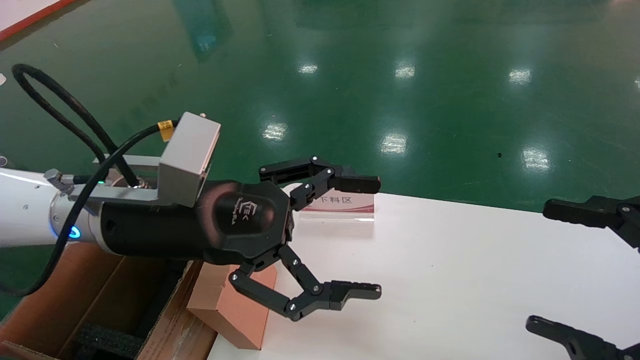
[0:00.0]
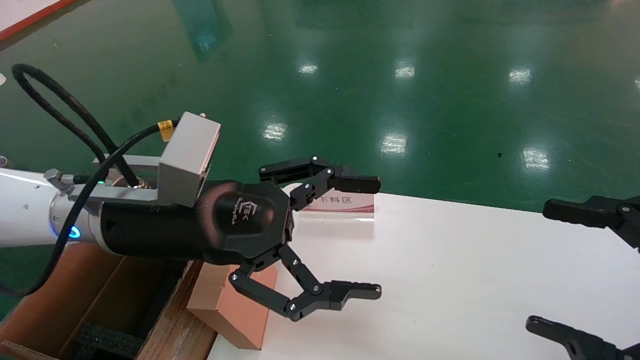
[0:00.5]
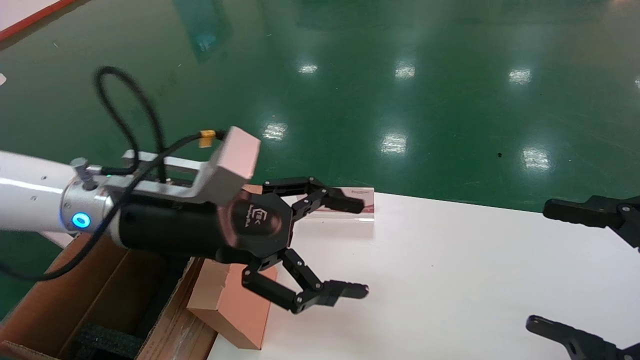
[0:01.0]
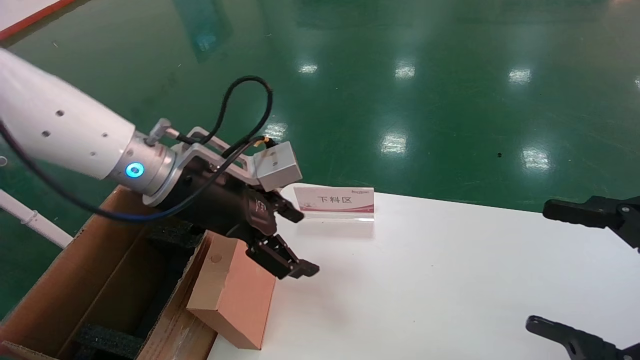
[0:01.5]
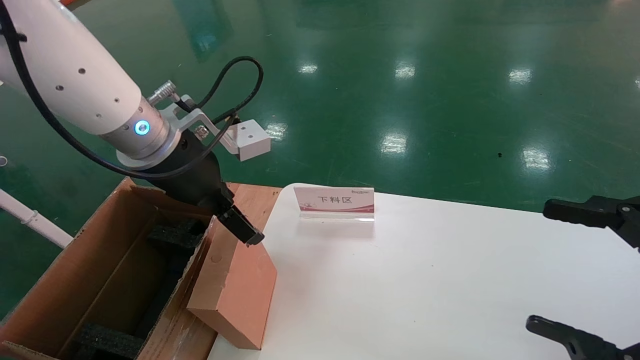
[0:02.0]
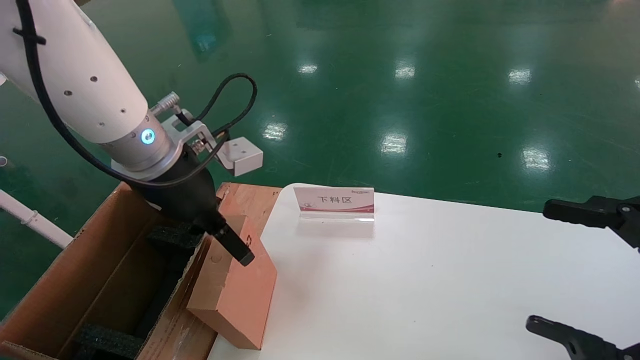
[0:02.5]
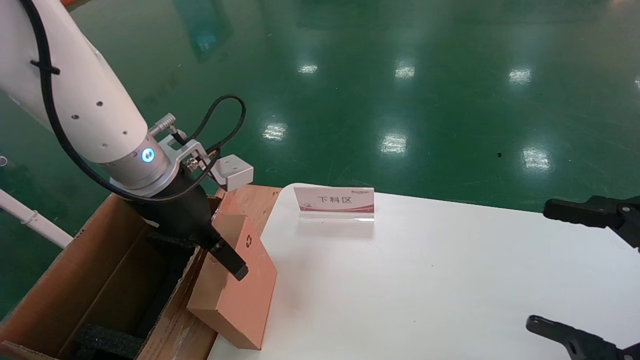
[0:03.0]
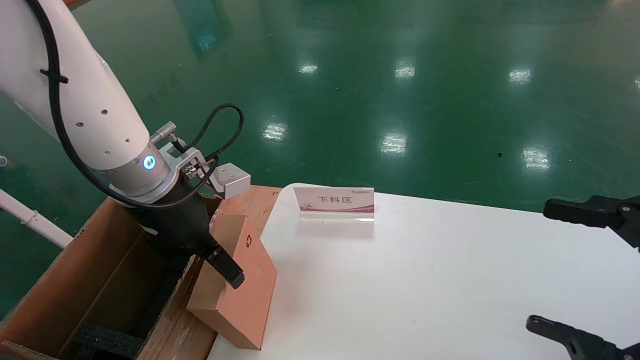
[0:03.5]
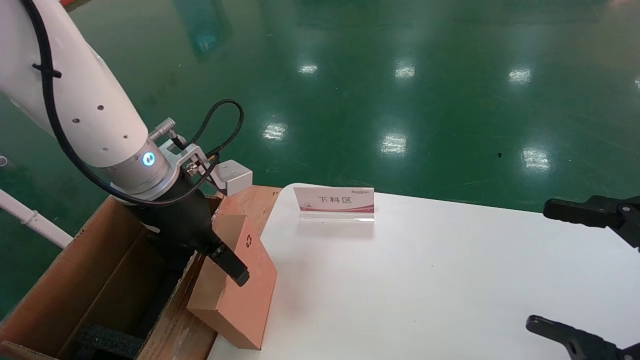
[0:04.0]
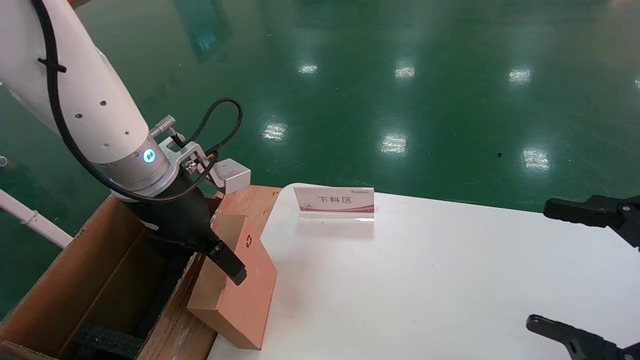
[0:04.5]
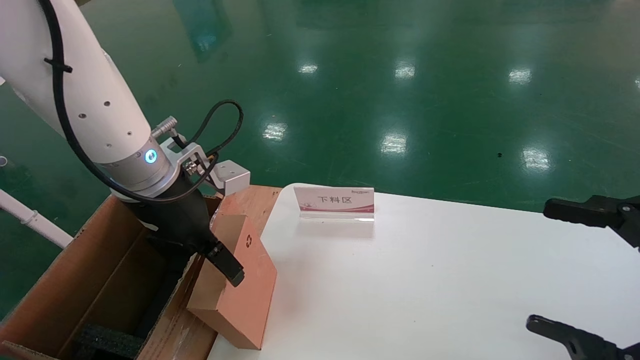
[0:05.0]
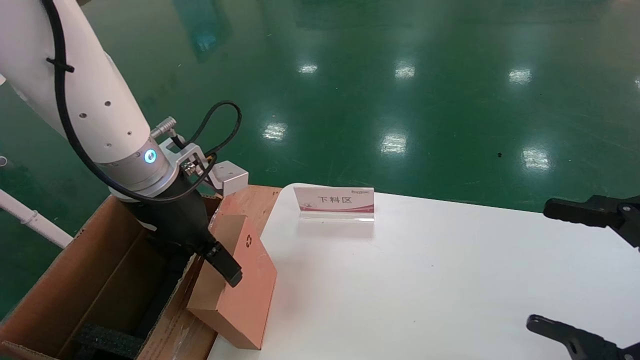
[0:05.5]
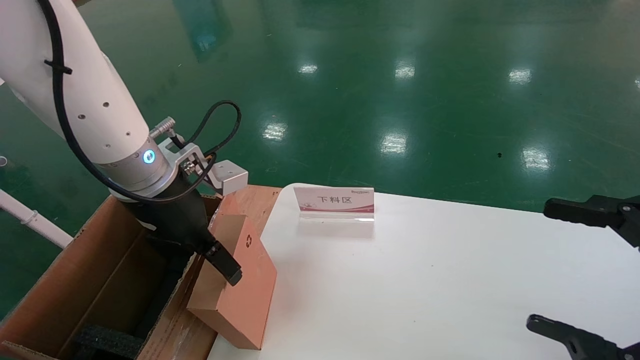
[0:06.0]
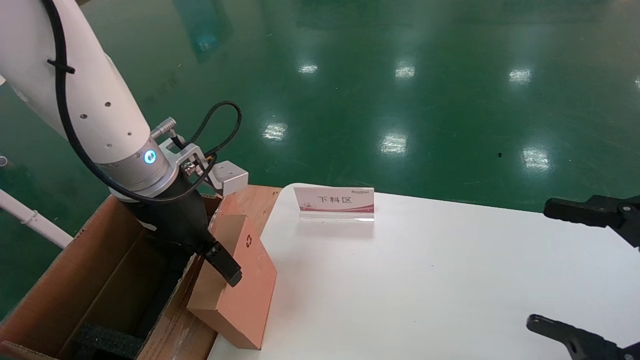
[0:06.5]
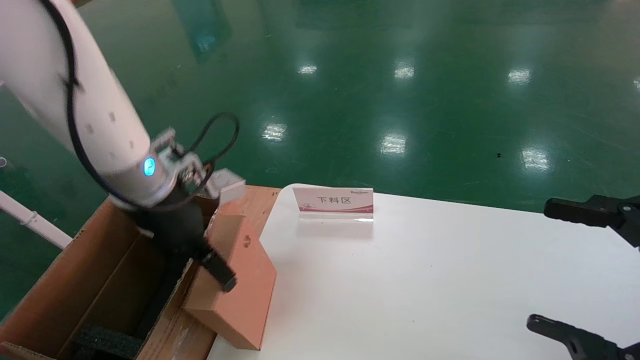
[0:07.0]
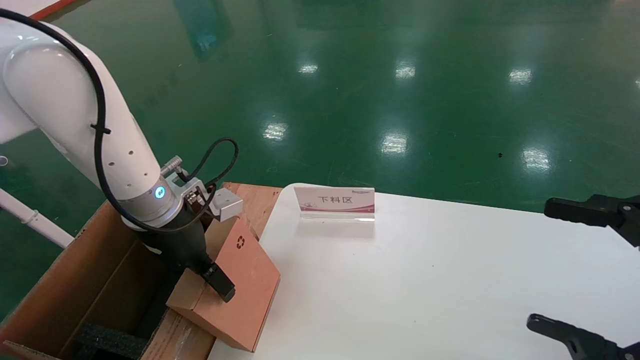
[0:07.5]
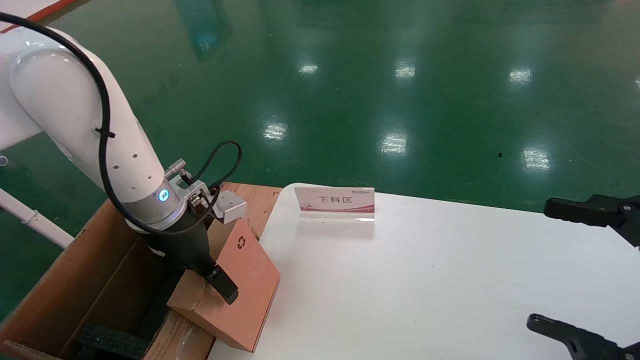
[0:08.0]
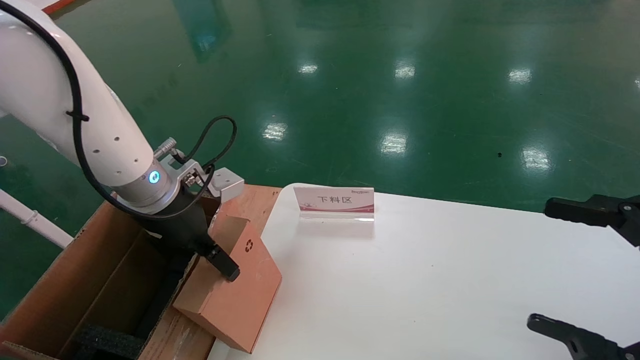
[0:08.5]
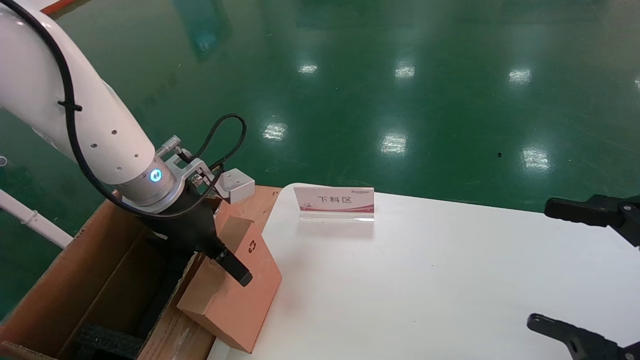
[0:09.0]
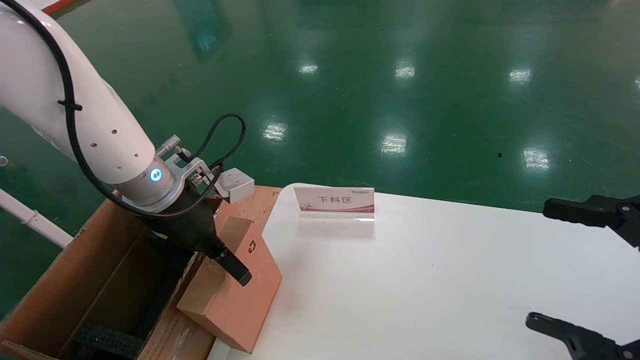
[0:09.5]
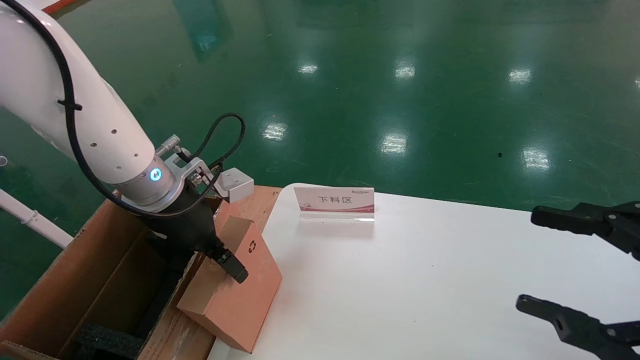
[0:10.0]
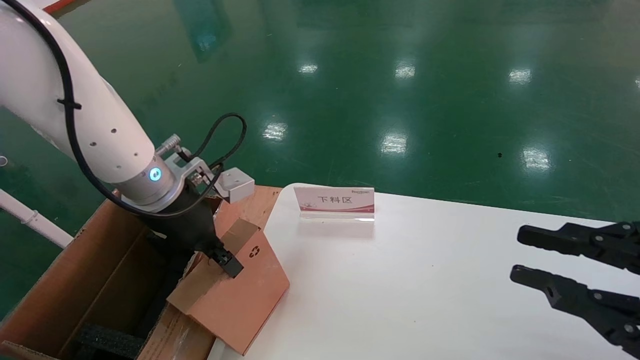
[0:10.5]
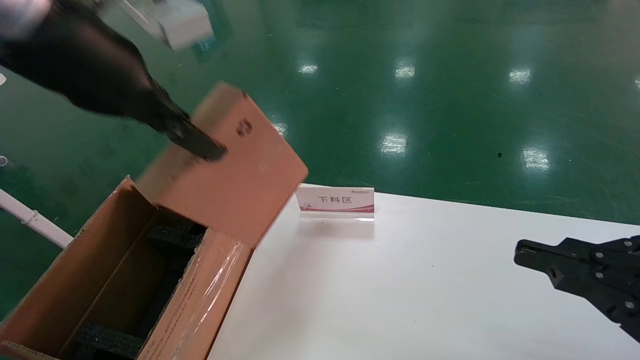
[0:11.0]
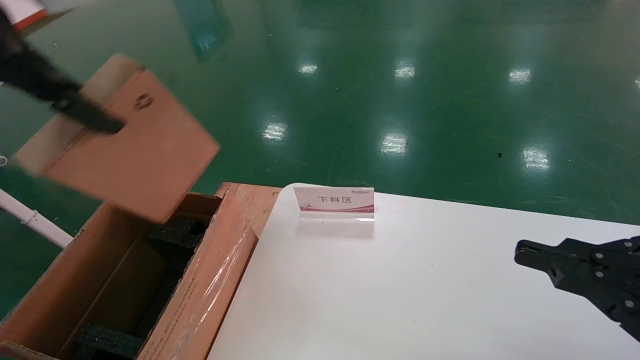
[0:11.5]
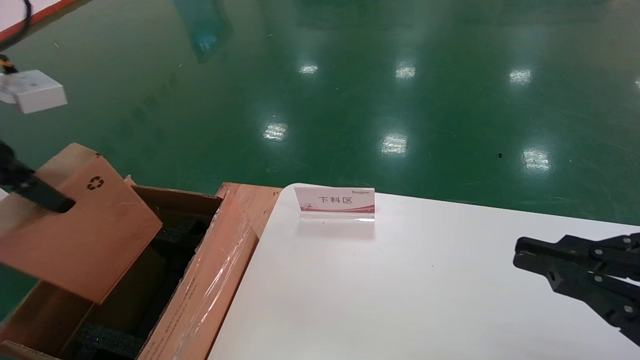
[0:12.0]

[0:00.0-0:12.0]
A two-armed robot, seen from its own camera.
Task of the whole recording: pick up the small cardboard box and load it into the large cardboard box.
Step, 0:01.0 to 0:05.5: Pick up the mouse and power cord box.
Step, 0:06.0 to 0:11.0: Place the mouse and power cord box into the case.
0:00.0 to 0:02.0: The left gripper goes approximately 5 cm forward.
0:02.0 to 0:04.0: There are only small adjustments of the grippers.
0:04.0 to 0:06.0: Both grippers stay put.
0:06.0 to 0:08.0: The left gripper travels downward by approximately 5 cm.
0:08.0 to 0:10.0: There are only small adjustments of the grippers.
0:10.0 to 0:12.0: The right gripper closes; the left gripper heads to the left, upward and backward, covering approximately 25 cm, and closes.

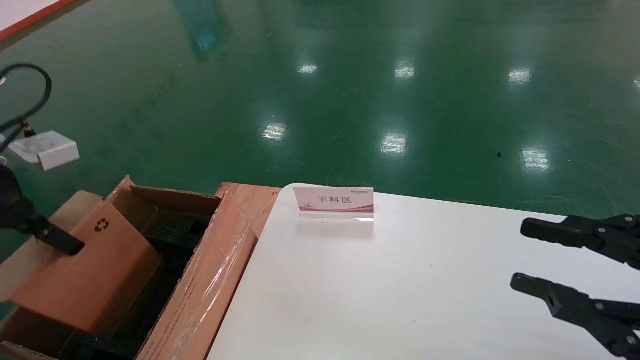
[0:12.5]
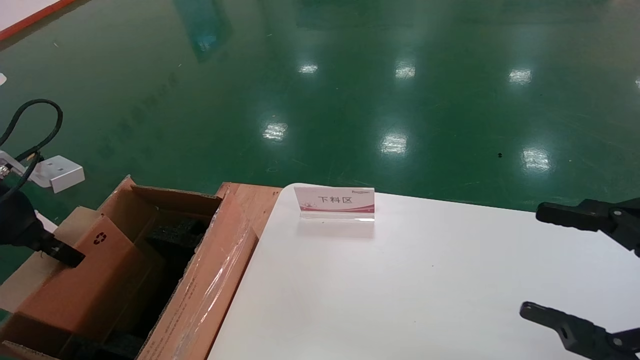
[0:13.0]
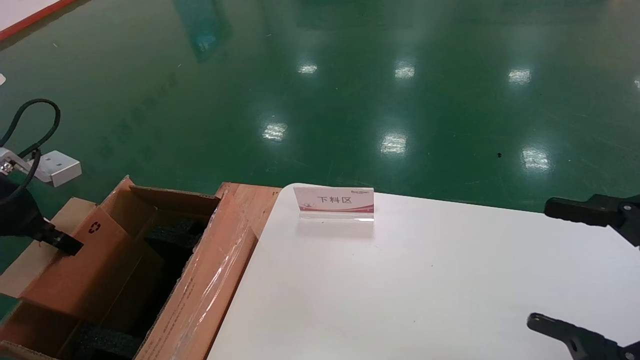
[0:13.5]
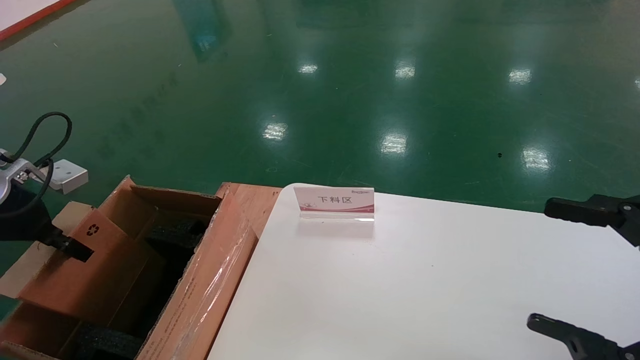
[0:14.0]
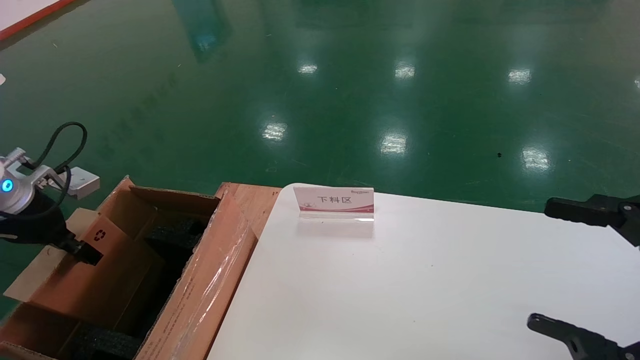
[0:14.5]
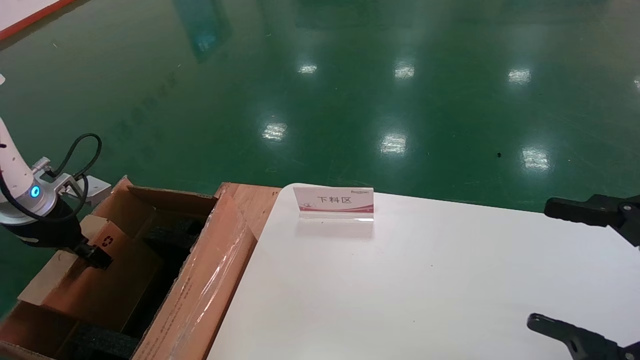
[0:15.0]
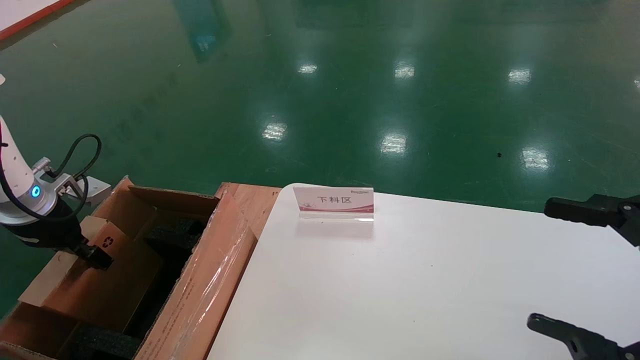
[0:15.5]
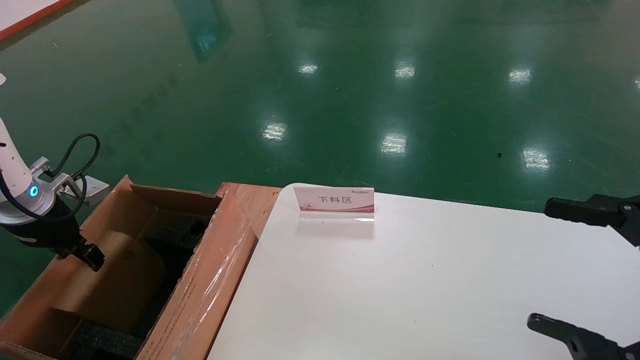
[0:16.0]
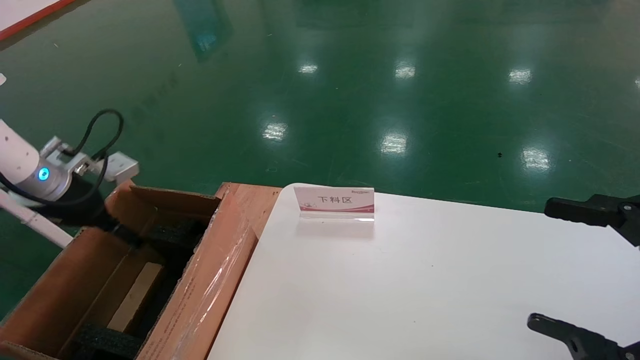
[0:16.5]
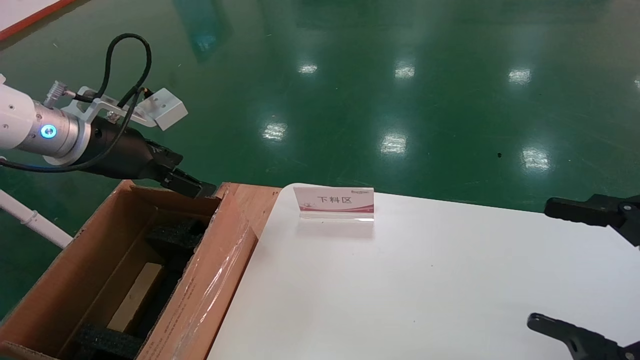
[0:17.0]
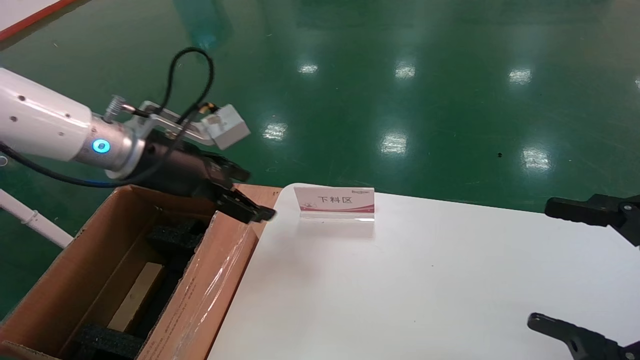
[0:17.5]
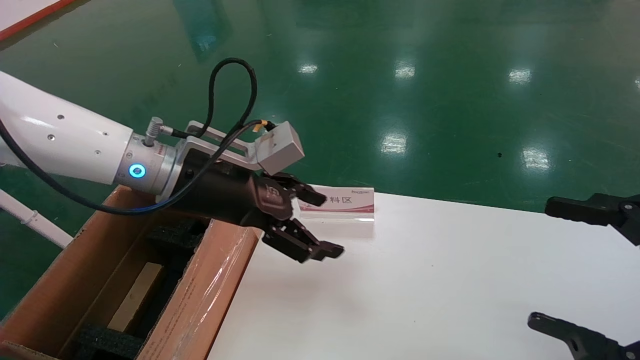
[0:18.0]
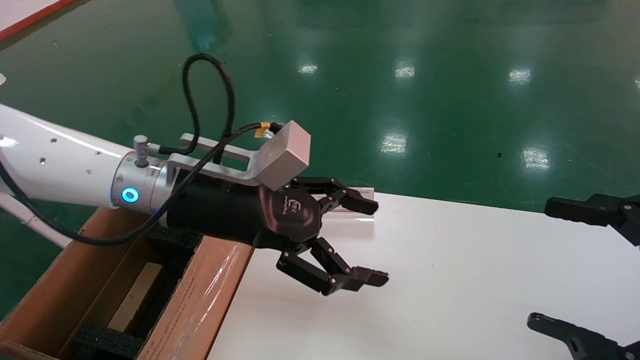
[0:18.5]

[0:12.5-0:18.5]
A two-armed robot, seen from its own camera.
Task of the whole recording: pick up the small cardboard box and load it into the large cardboard box.
0:12.5 to 0:14.5: The left gripper moves downward, forward and to the left, approximately 15 cm. Meanwhile the right gripper opens its fingers.
0:14.5 to 0:16.5: The left gripper ends up approximately 5 cm from where it was, and opens up.
0:16.5 to 0:18.5: The left gripper moves to the right, some 25 cm.

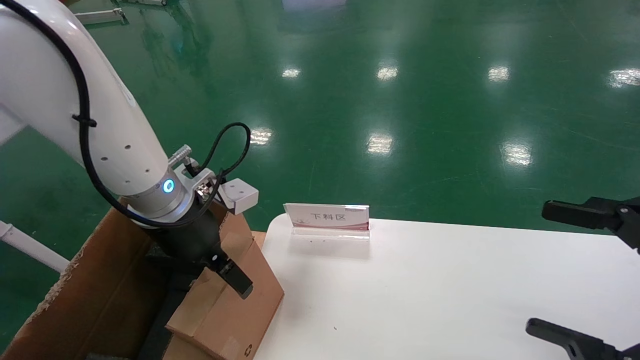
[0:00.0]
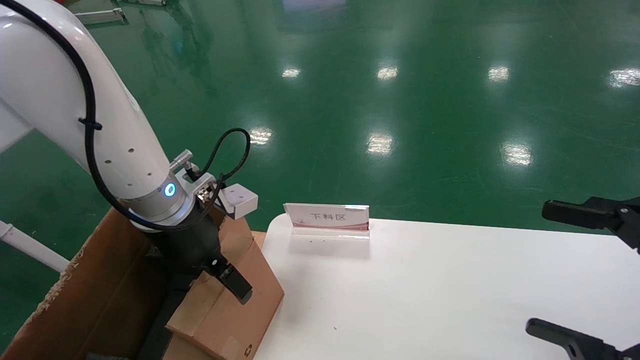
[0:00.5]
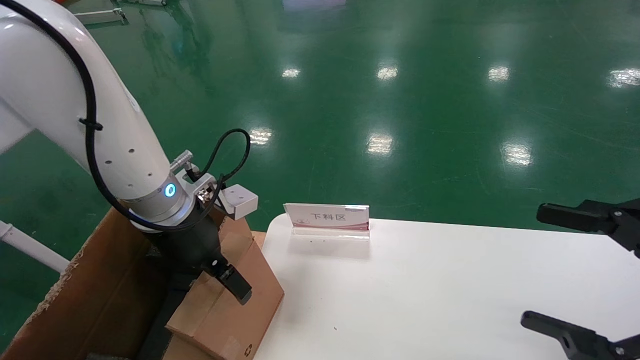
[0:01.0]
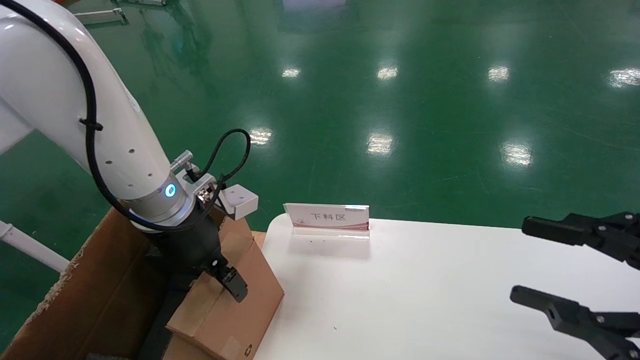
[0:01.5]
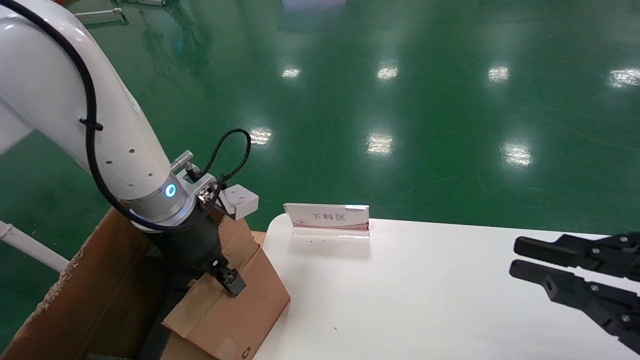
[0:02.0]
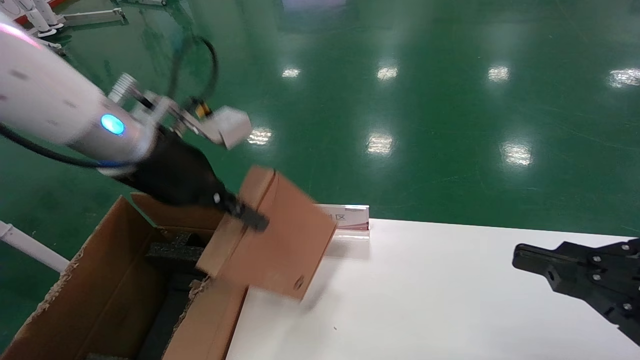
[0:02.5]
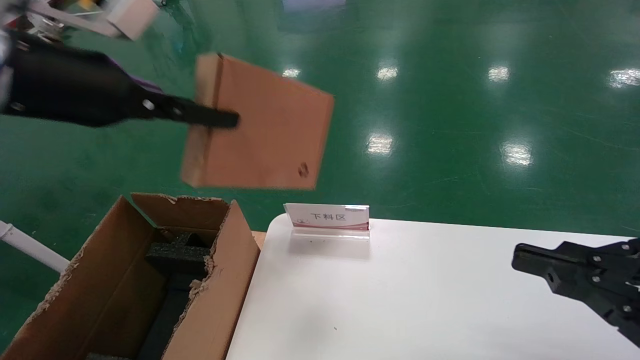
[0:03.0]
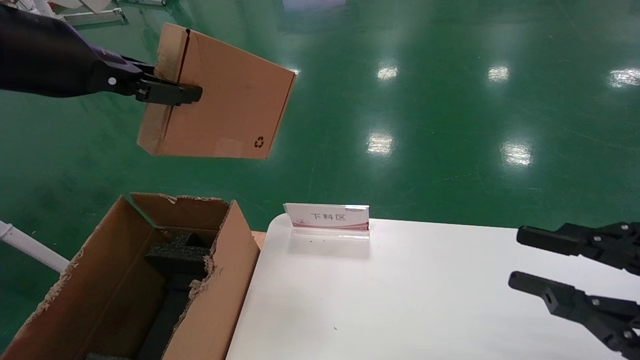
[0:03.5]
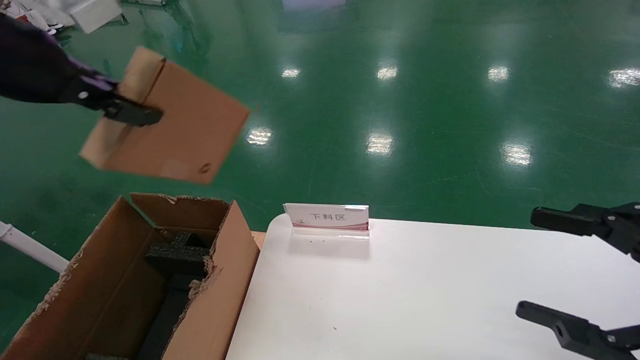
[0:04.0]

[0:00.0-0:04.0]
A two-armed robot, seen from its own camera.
Task of the whole recording: pick up the small cardboard box and load it into the large cardboard box.
0:00.0 to 0:02.0: The right gripper closes its fingers, while the left gripper closes up.
0:02.0 to 0:04.0: The left gripper shifts some 20 cm upward, to the left and backward.
